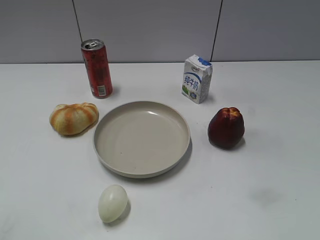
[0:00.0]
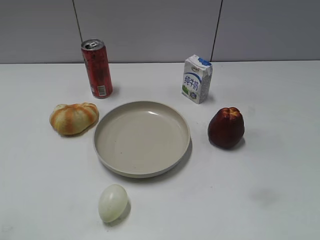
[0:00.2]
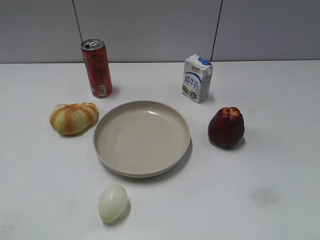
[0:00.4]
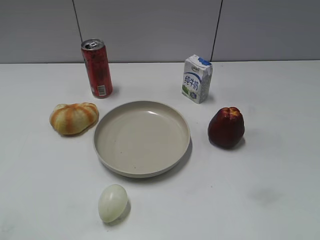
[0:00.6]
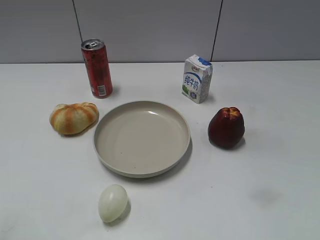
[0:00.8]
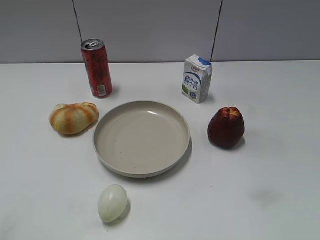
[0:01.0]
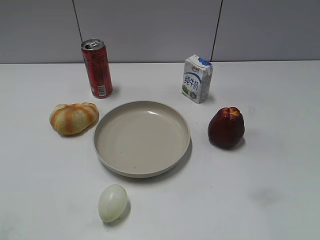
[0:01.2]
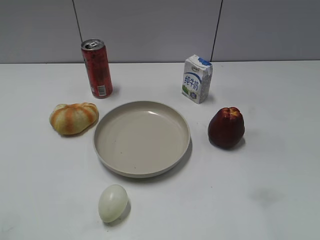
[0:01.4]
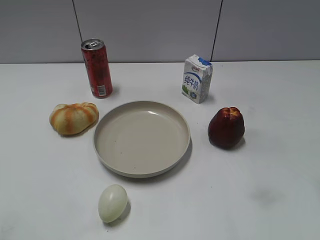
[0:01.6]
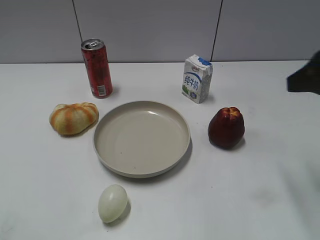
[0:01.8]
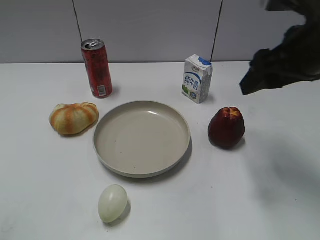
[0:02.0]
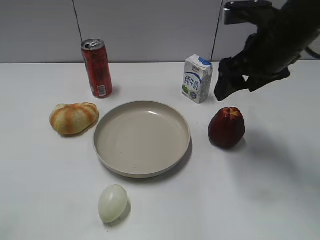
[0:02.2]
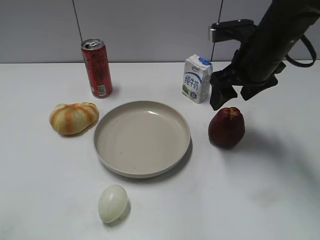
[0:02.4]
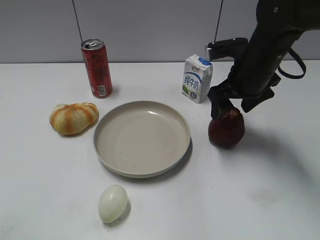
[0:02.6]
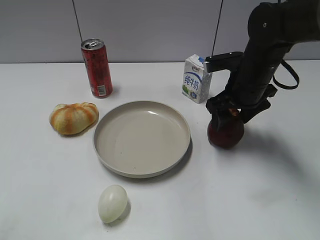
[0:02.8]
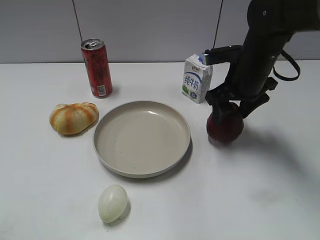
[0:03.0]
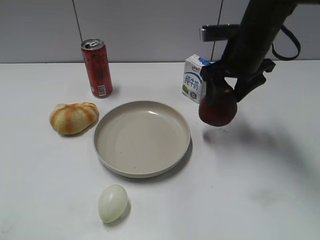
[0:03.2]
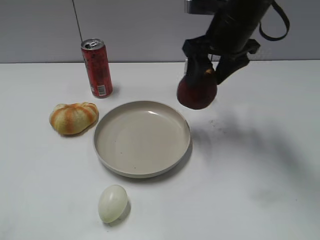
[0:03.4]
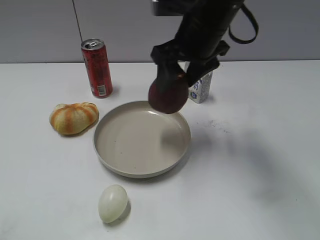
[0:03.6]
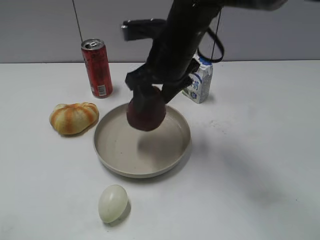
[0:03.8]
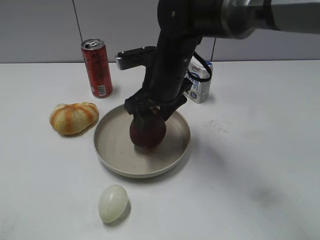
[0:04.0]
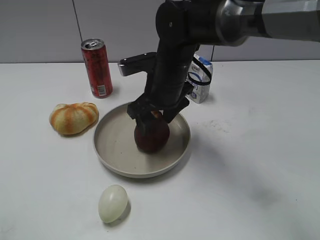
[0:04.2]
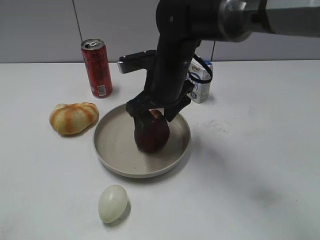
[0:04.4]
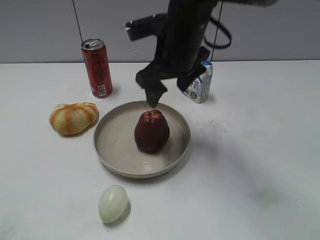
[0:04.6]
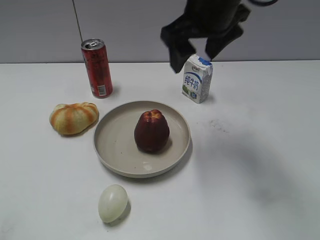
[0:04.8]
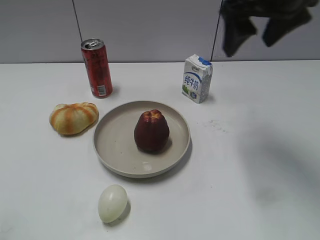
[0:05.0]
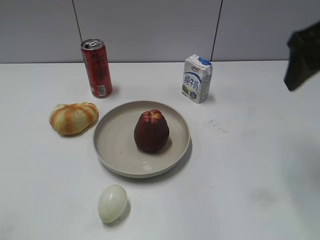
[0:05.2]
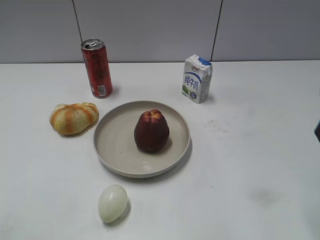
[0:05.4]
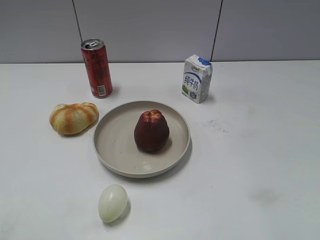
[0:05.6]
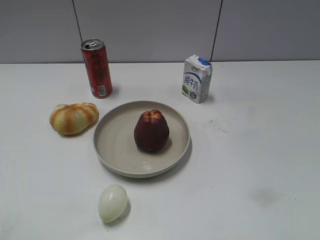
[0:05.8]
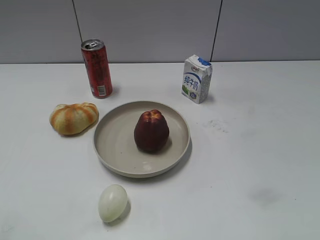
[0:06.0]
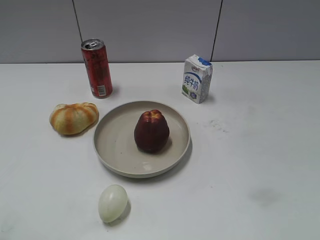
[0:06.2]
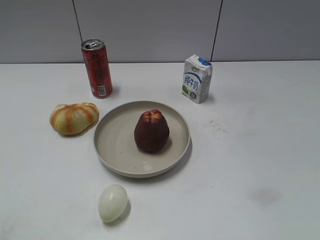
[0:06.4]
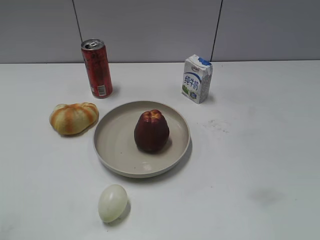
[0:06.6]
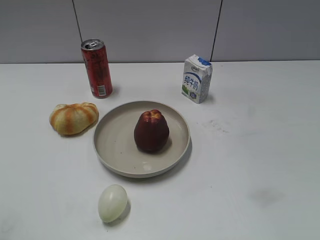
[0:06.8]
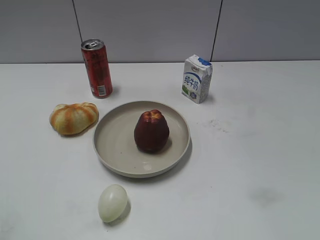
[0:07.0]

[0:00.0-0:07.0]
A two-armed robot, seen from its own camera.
Step, 0:01.0 to 0:02.8: Grasp the apple with right gripper.
Step, 0:03.0 to 0:04.4: Place the apple on the plate with right gripper.
0:01.4 to 0:02.8: The right gripper moves forward, downward and to the left, roughly 35 cm, and opens.
0:02.8 to 0:04.2: The right gripper travels to the left by approximately 15 cm, and closes, then reopens.
0:04.2 to 0:05.6: The right gripper heads to the right, backward and upward, covering about 35 cm.
